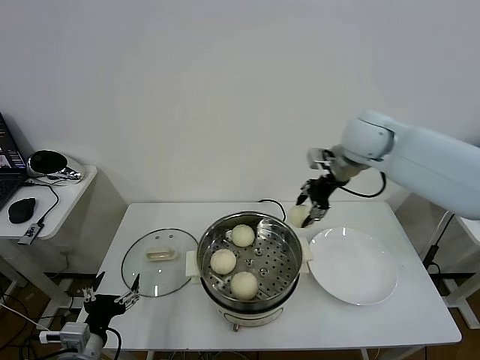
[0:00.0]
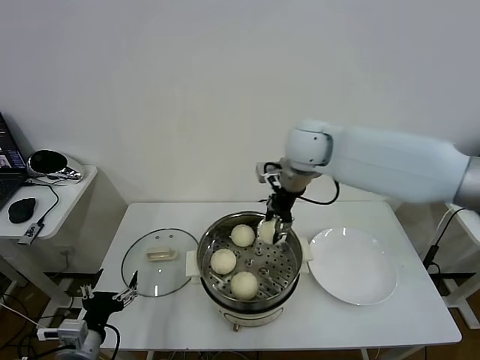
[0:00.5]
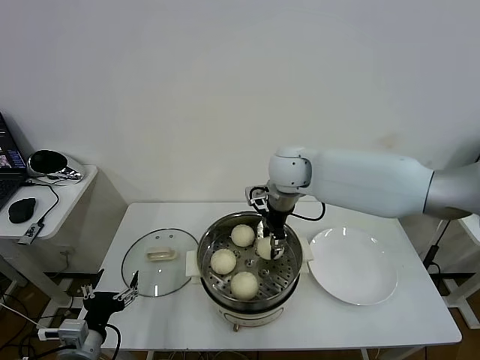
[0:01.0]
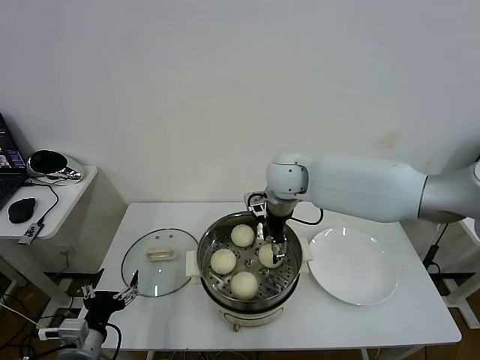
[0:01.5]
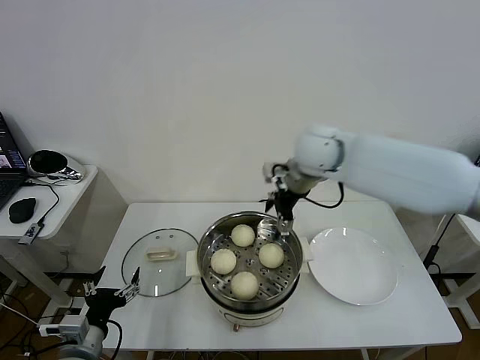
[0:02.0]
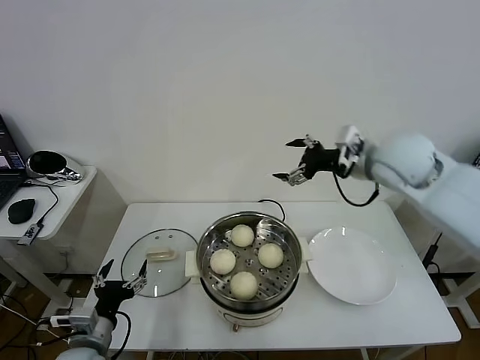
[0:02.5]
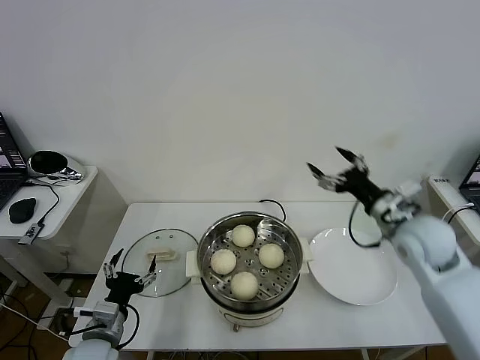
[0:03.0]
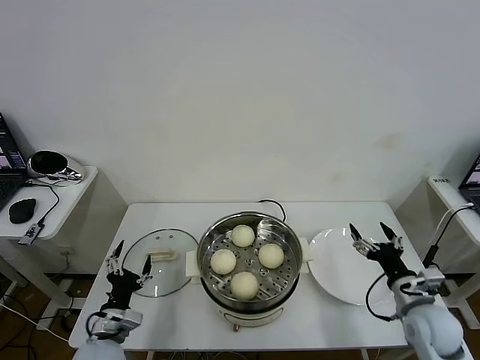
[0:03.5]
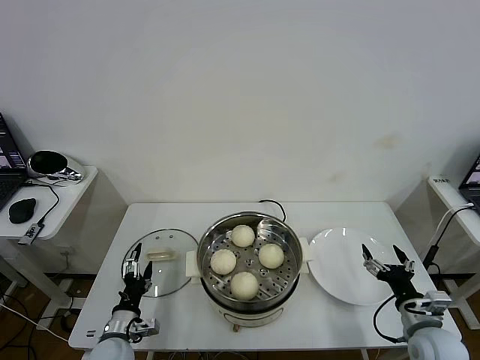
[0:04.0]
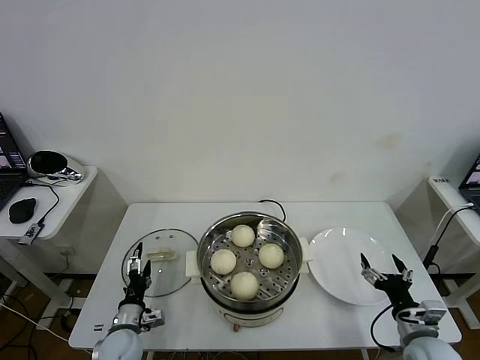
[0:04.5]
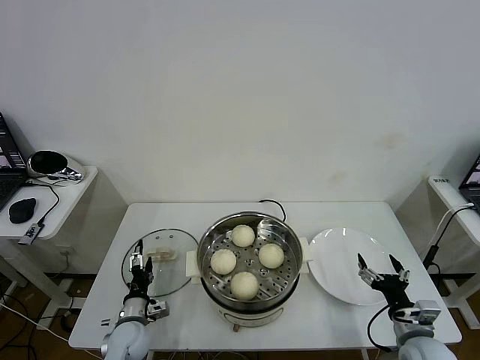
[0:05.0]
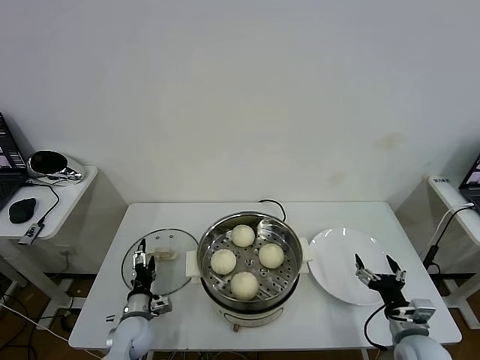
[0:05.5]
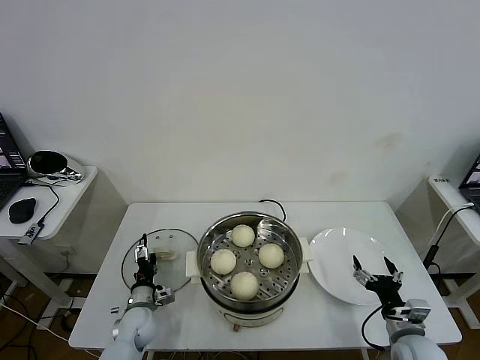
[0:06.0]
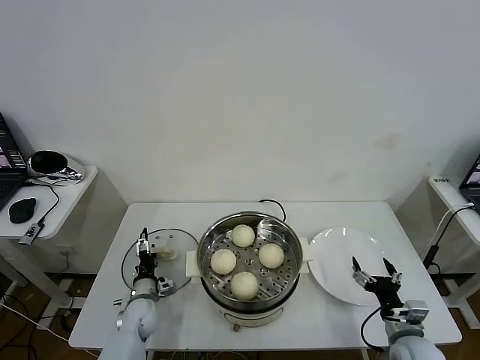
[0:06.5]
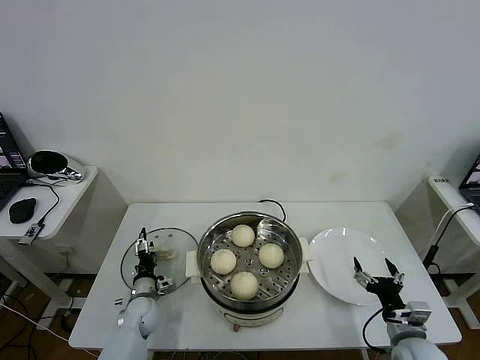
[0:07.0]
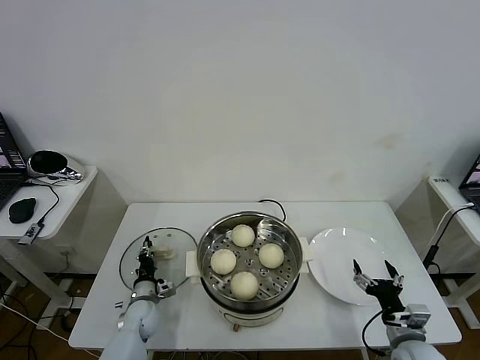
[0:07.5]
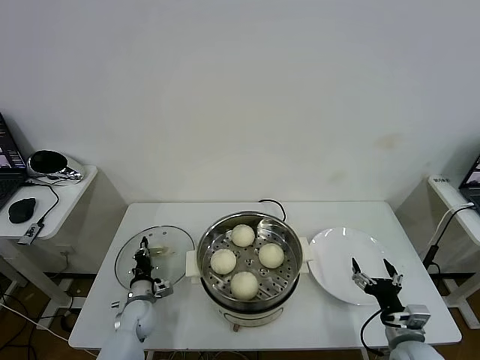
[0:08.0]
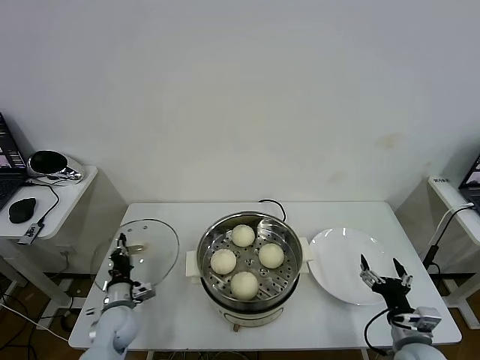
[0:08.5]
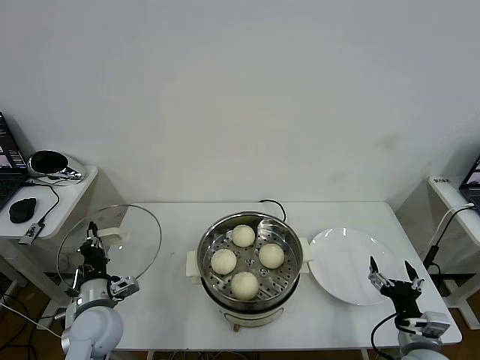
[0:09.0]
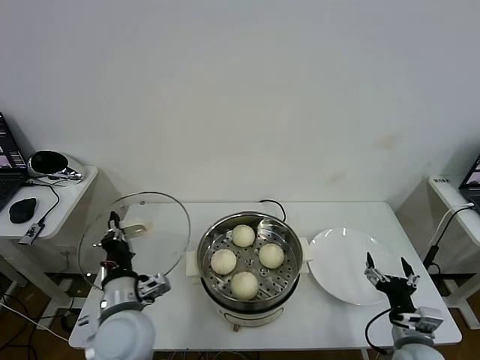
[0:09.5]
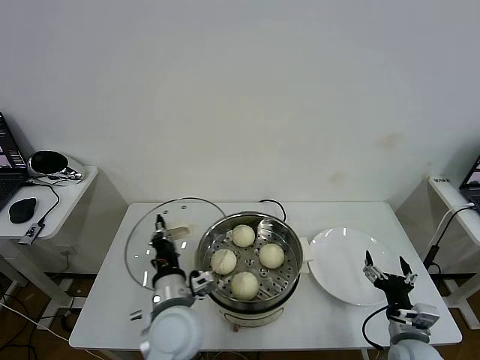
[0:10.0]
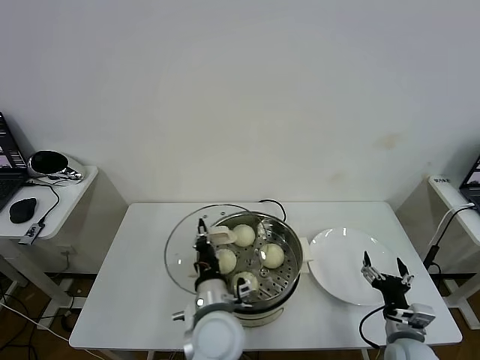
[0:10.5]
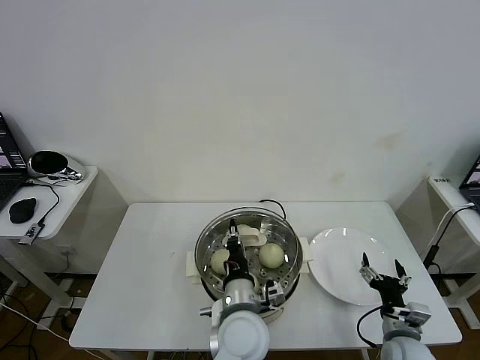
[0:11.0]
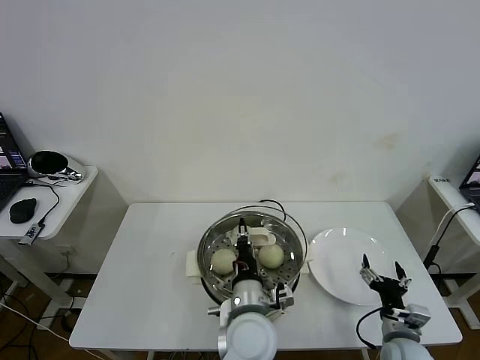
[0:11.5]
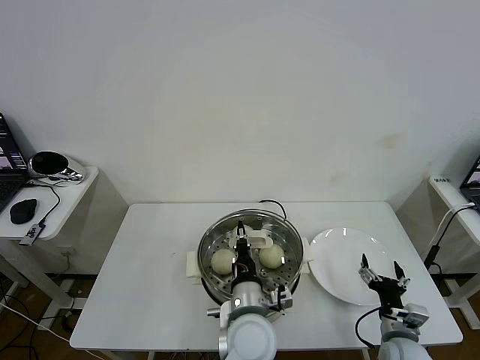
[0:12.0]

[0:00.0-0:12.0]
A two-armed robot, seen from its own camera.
Task of the whole recording: take steamed baozi put them in steamer then cover it.
Step, 0.0 to 1.5 s: Place the baozi on the steamer with right gripper.
Step, 2.0 to 8.0 s: Grasp the pot lid with left gripper.
0.0 to 2.0 s: The right gripper moves to the left, some 10 cm, and opens.
2.0 to 4.0 s: The left gripper goes approximately 10 cm downward and forward, while the right gripper shifts some 50 cm backward, downward and to the right.
4.0 to 6.0 s: The left gripper shifts some 10 cm forward and downward.
6.0 to 8.0 s: The left gripper closes.
8.0 to 10.0 s: The left gripper travels upward, to the right and backward by roughly 30 cm.
10.0 to 12.0 s: The left gripper travels to the right by roughly 15 cm.

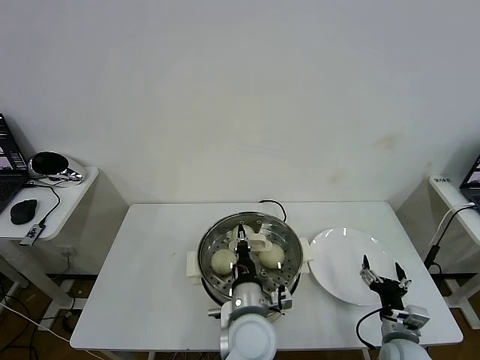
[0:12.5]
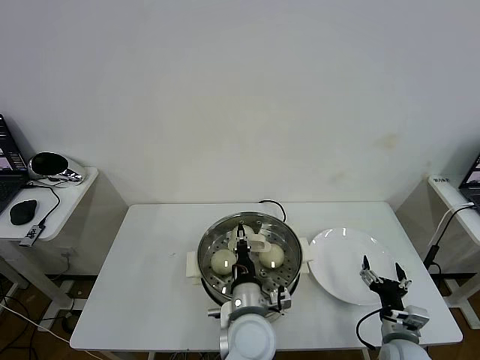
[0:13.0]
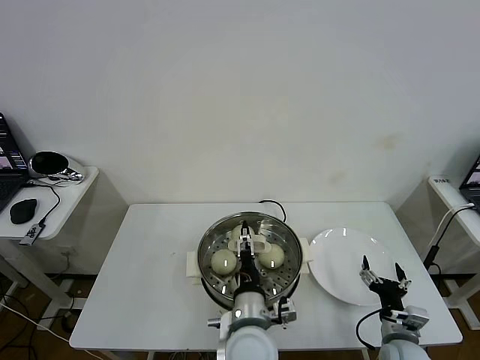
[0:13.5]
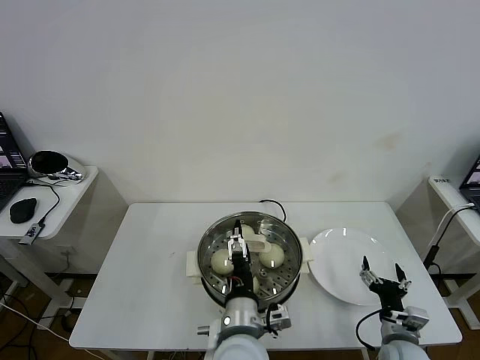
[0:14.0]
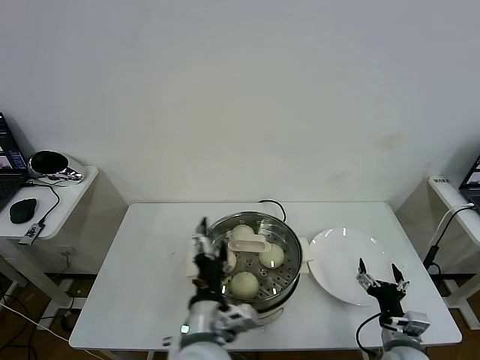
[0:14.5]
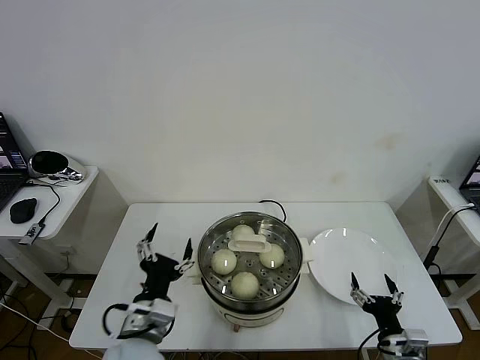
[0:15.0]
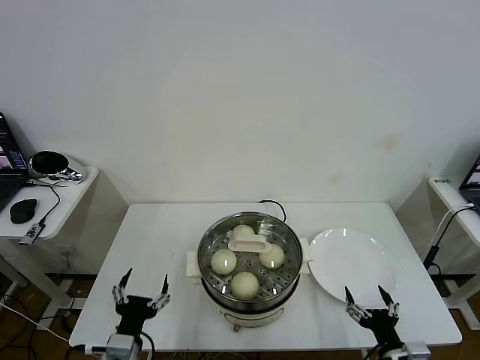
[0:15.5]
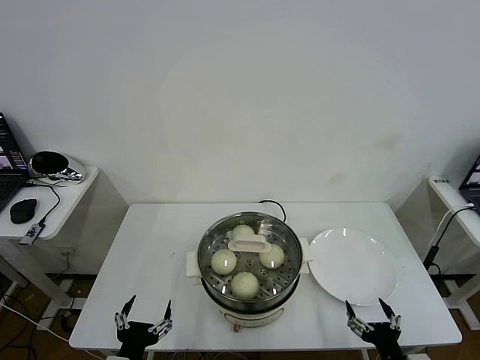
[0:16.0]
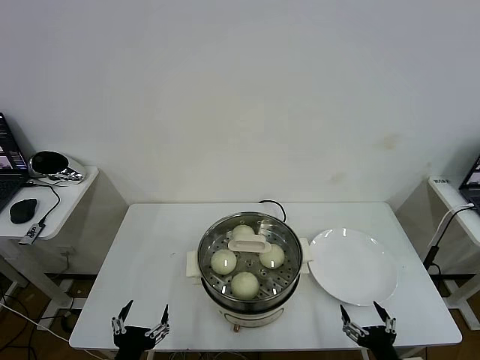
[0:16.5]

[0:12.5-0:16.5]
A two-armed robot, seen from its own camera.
Task of the whole recording: take steamed baozi put them in steamer then cover it.
12.5 to 14.5 s: The left gripper is displaced backward, upward and to the left by approximately 10 cm, and opens its fingers.
14.5 to 16.5 s: The left gripper heads to the left and downward, covering approximately 20 cm. The right gripper goes roughly 10 cm backward.

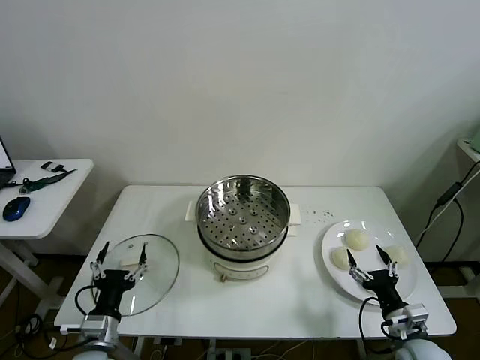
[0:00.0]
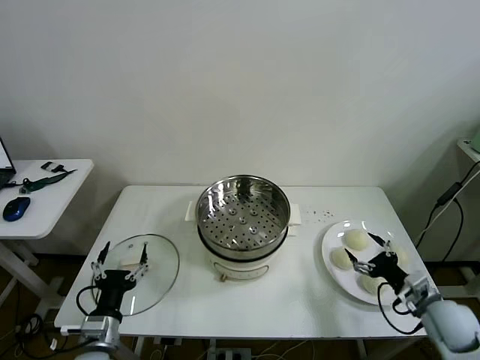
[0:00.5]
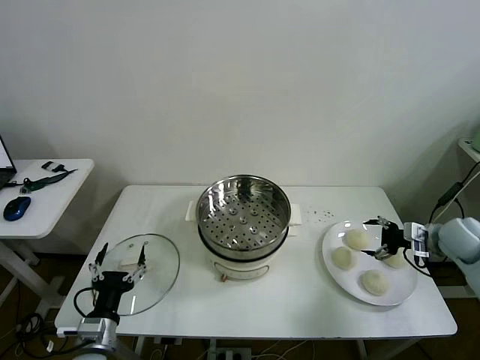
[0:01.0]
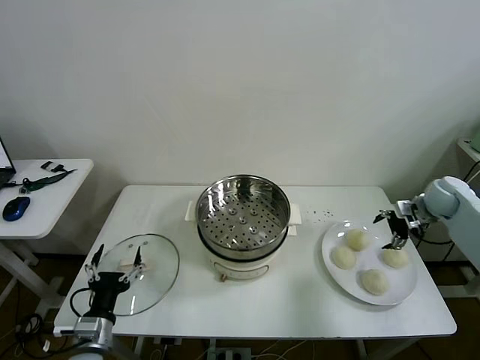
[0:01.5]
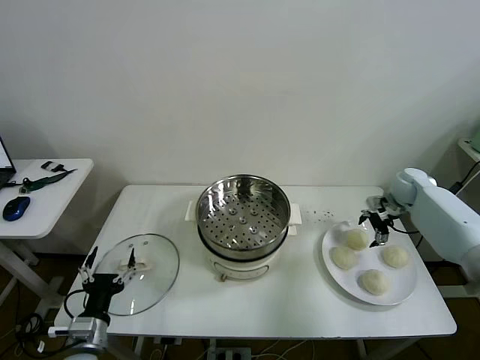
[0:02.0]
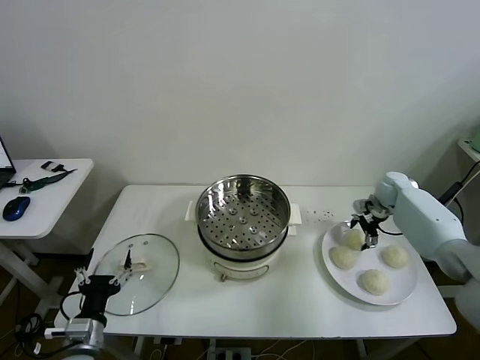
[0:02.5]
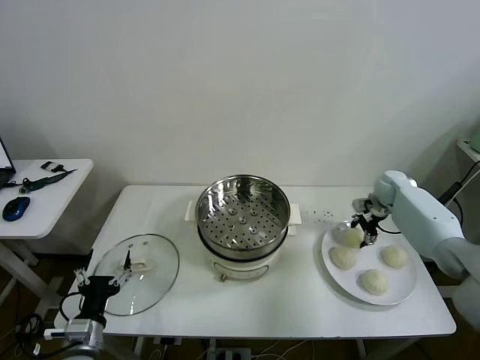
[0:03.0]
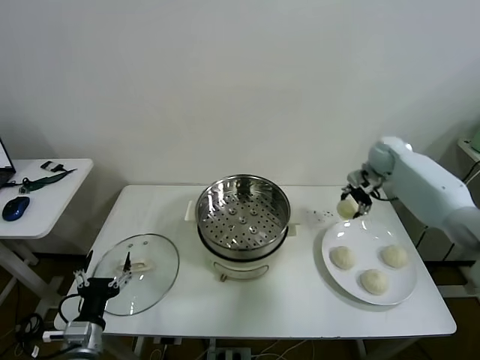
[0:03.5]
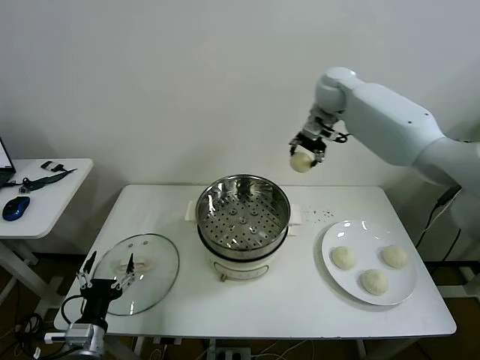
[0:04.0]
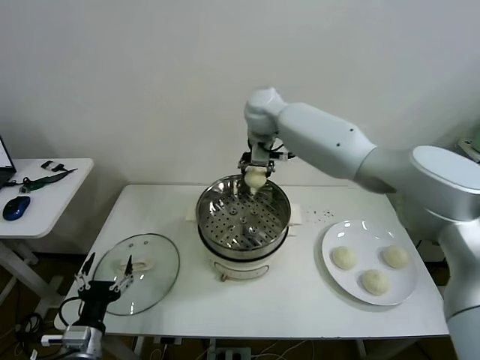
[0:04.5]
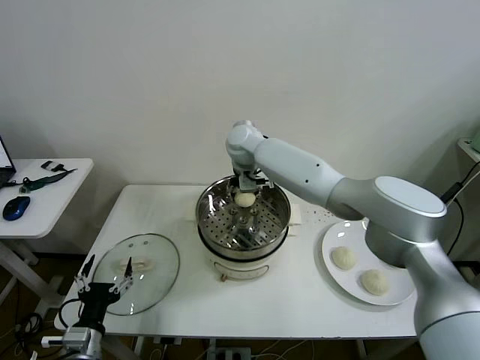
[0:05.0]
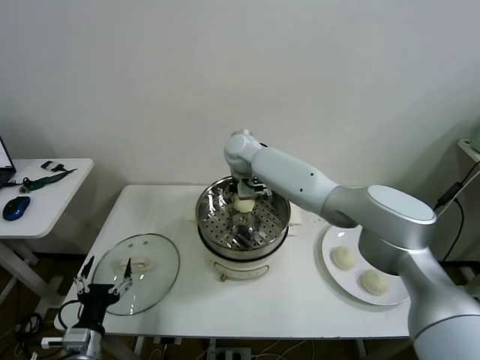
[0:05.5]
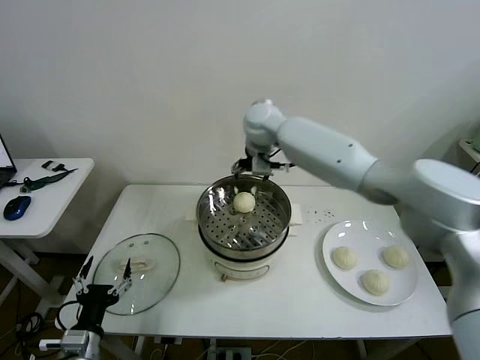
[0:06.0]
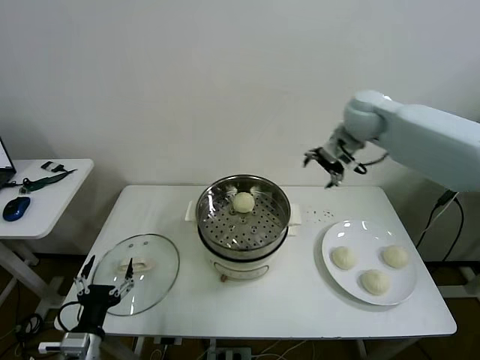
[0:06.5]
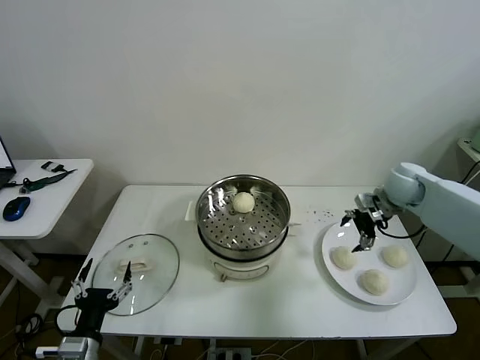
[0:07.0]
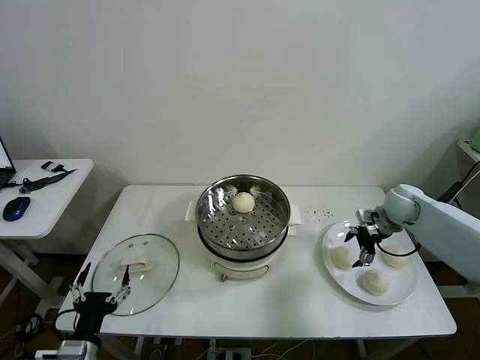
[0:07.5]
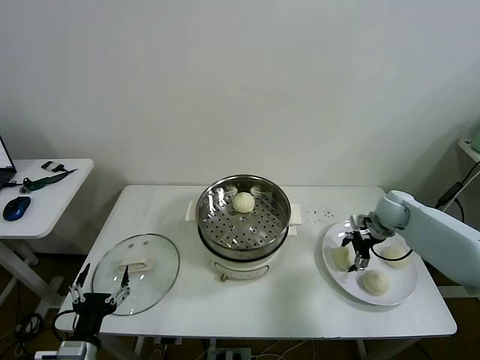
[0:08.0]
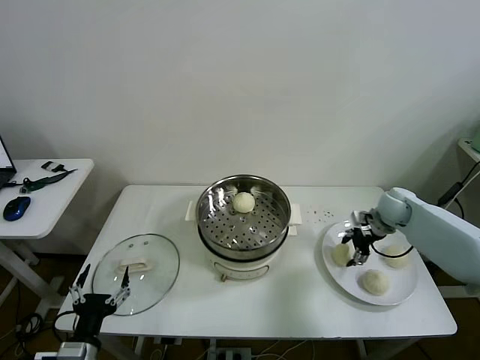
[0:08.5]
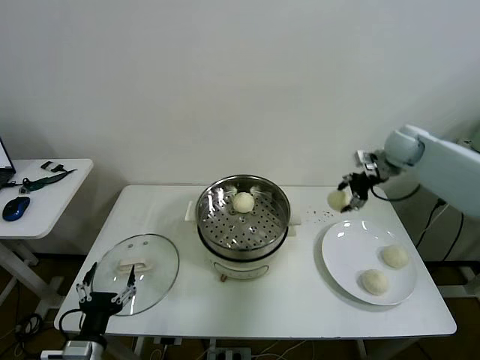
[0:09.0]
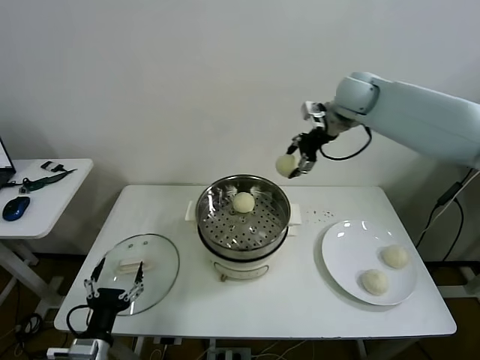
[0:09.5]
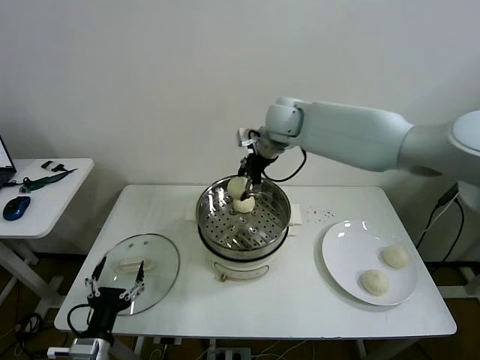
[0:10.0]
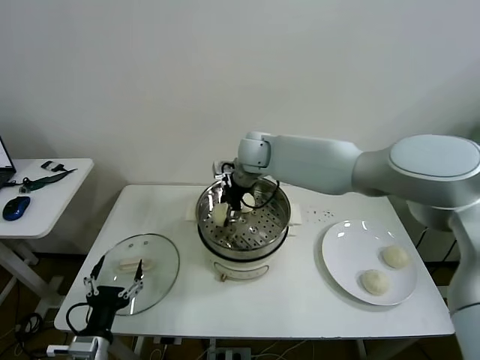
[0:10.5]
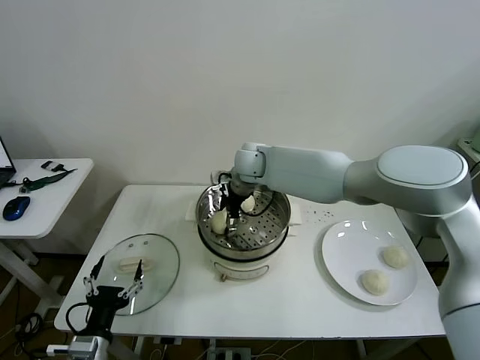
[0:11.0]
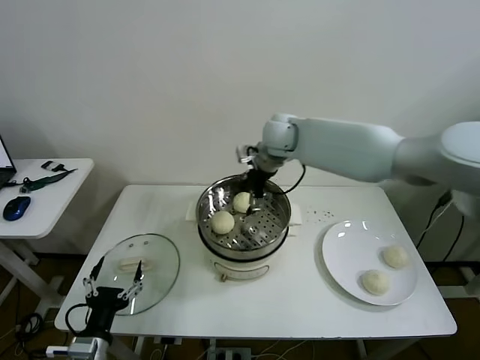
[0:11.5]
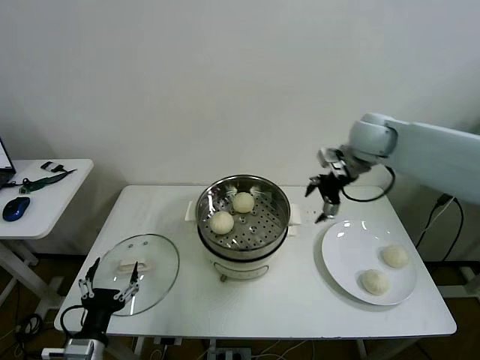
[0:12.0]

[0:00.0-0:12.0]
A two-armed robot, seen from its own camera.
Task of the whole recording: take steamed baozi put them in steamer then cover it.
Step, 0.0 to 2.5 s: Grasp the baozi in the plate with right gripper.
Step, 3.0 to 5.5 s: Place the baozi on the steamer with right gripper.
Step, 6.0 to 8.0 s: Grasp the baozi in the plate with right gripper.
Step, 8.5 to 11.0 s: Place the baozi on the steamer with right gripper.
2.0 to 4.0 s: The right gripper moves to the left and upward, approximately 40 cm, and closes up.
4.0 to 6.0 s: The right gripper moves to the left, roughly 10 cm, and opens.
6.0 to 8.0 s: The right gripper travels to the right and downward by approximately 40 cm.
8.0 to 10.0 s: The right gripper is displaced to the left and upward by approximately 40 cm, and closes up.
10.0 to 12.0 s: The right gripper shifts roughly 20 cm to the right, and opens up.
